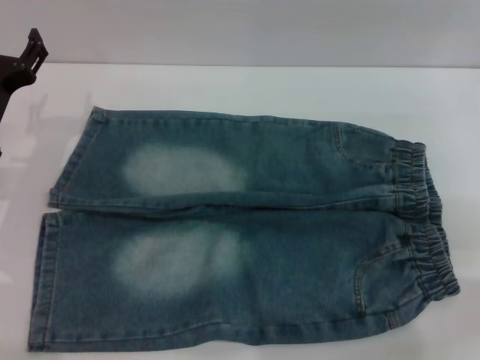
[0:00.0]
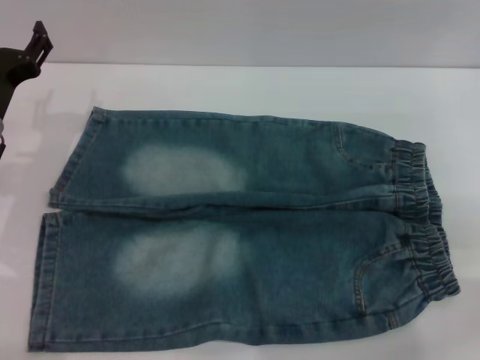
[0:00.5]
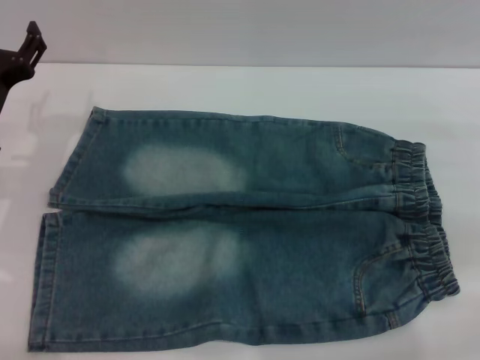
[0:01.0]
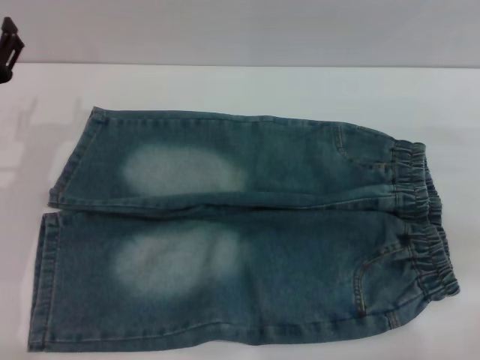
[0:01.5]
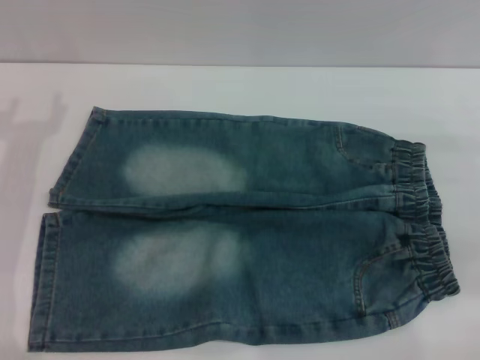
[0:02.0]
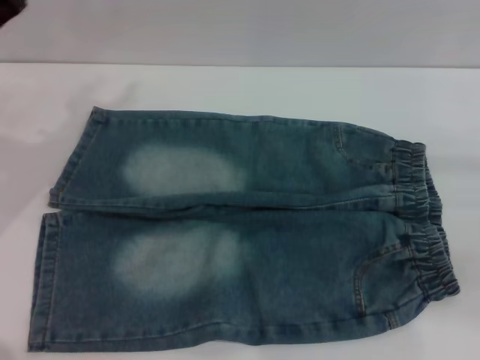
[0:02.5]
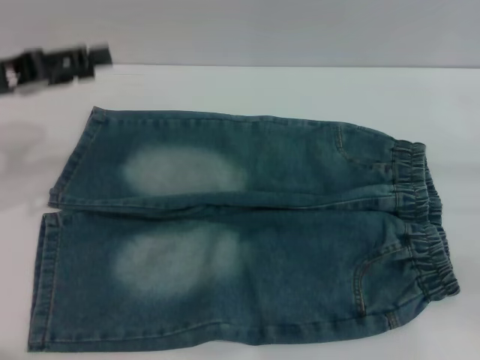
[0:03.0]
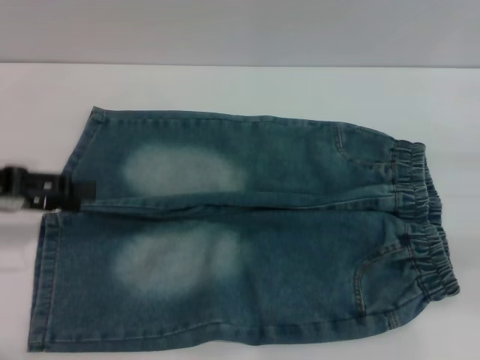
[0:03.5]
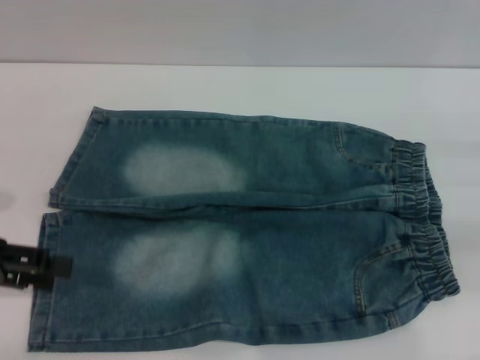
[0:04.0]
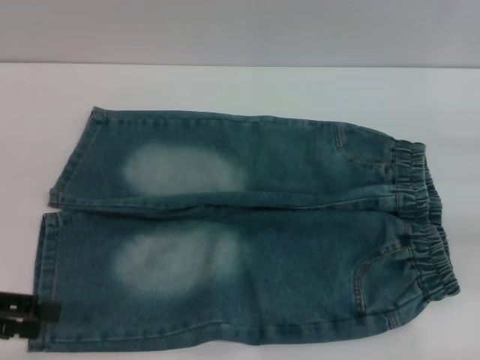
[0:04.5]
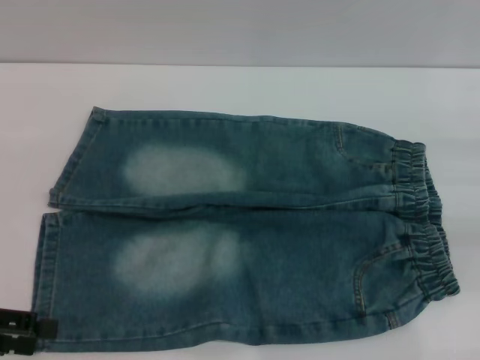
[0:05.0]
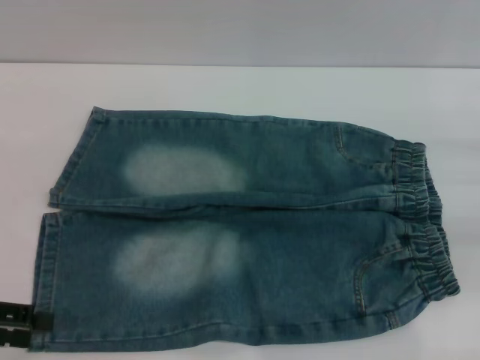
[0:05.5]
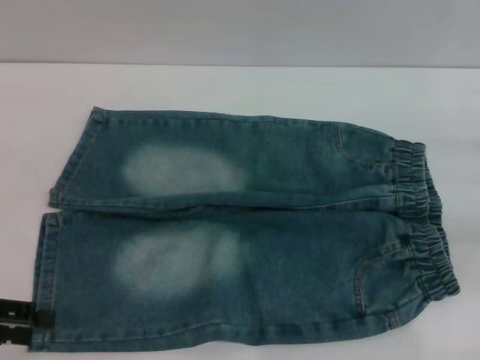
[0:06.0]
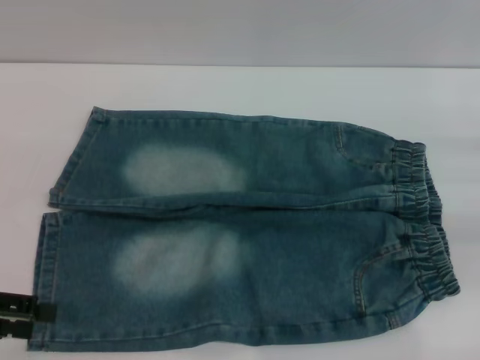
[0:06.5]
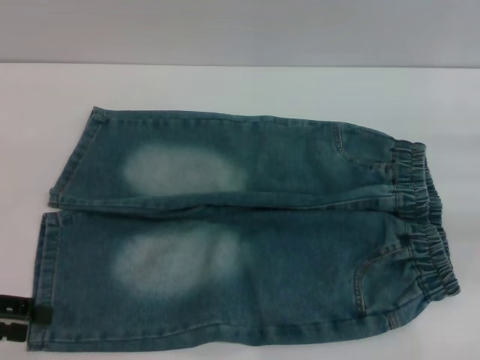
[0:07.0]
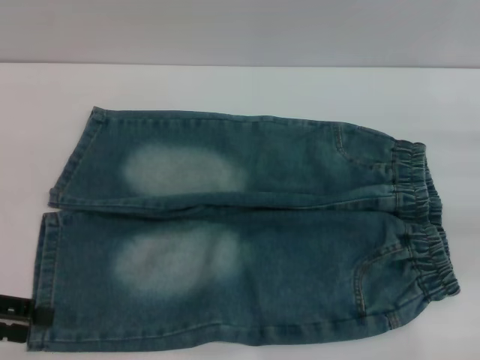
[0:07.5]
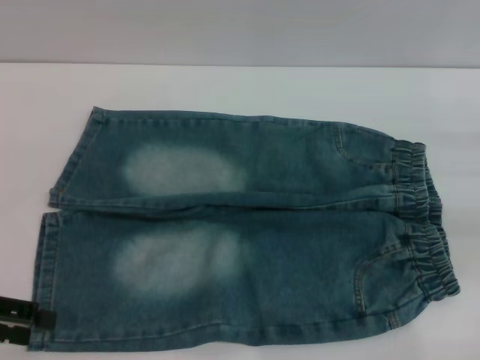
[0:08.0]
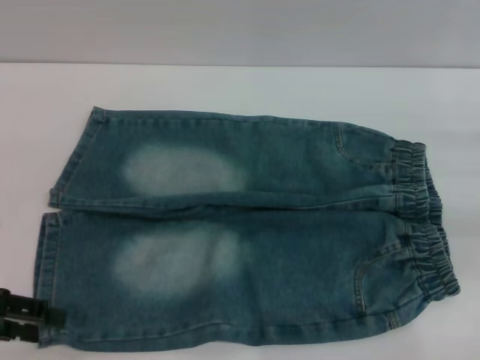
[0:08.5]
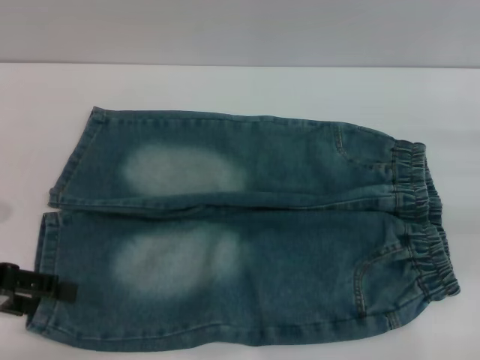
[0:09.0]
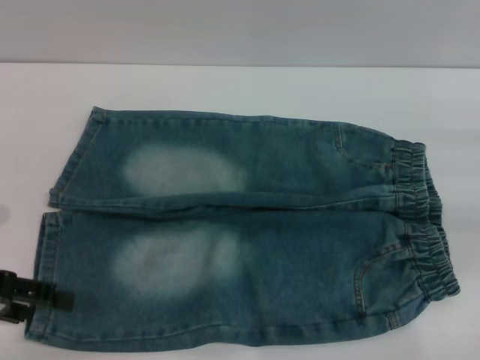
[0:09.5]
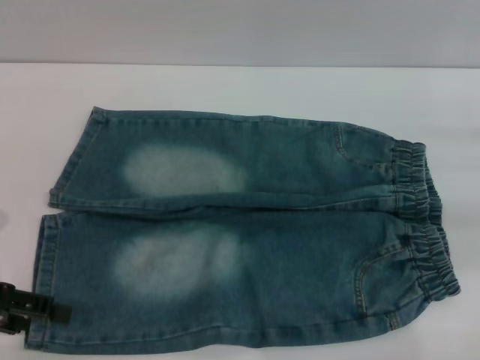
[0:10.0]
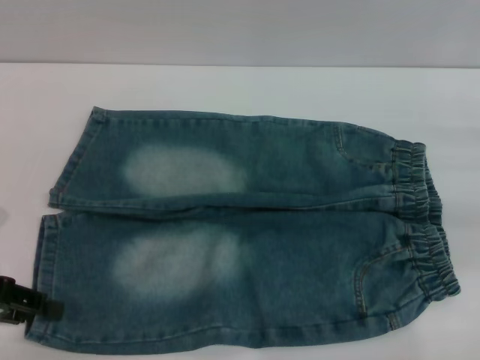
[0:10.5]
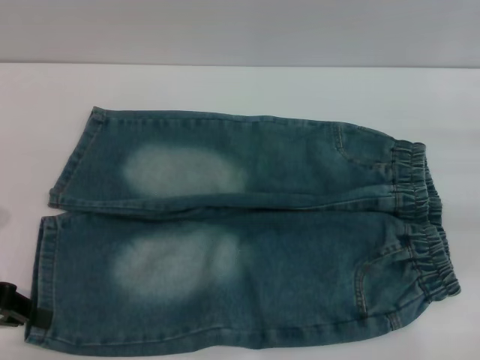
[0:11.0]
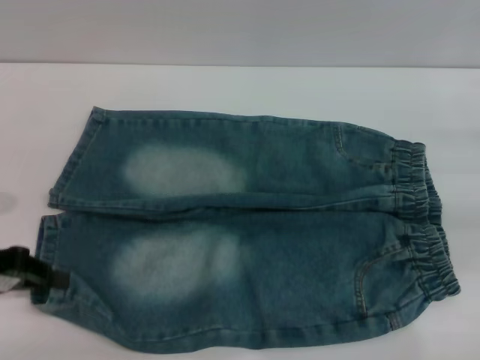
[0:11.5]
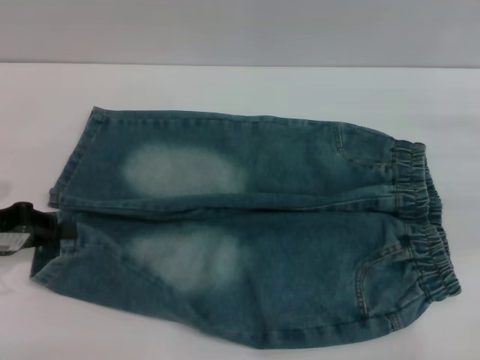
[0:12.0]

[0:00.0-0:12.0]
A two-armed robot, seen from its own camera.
0:00.0 to 0:02.0: The right gripper ends up roughly 5 cm from where it was.
0:02.0 to 0:04.0: The left gripper is displaced backward and to the left by approximately 10 cm.
0:04.0 to 0:06.0: The left gripper changes place by approximately 5 cm.
0:06.0 to 0:08.0: Neither gripper changes place.
0:08.0 to 0:10.0: The grippers make only small movements.
0:10.0 to 0:12.0: The left gripper closes its fingers.

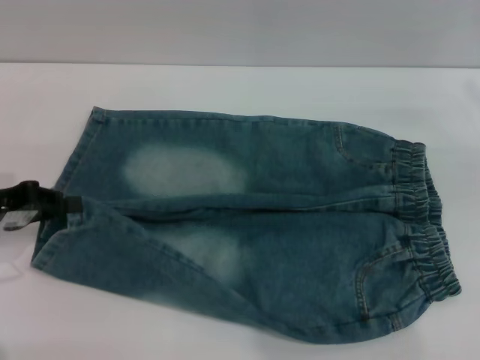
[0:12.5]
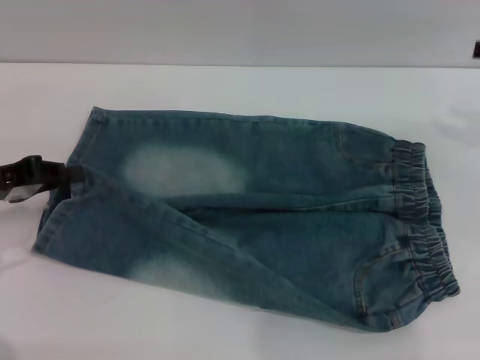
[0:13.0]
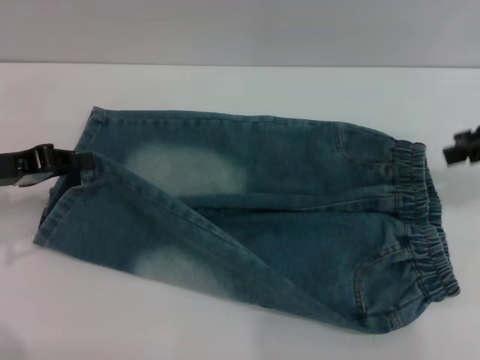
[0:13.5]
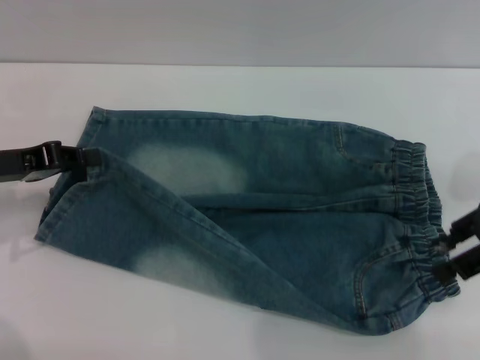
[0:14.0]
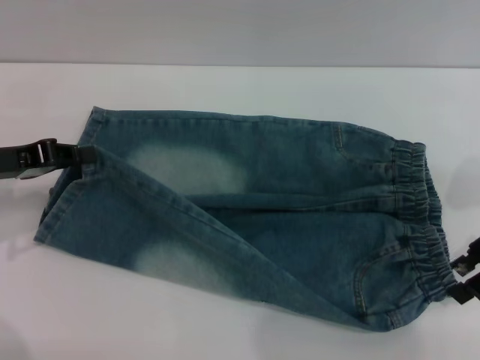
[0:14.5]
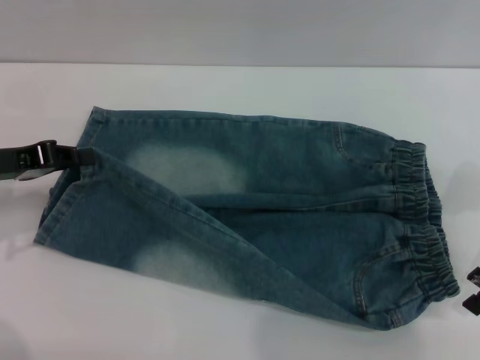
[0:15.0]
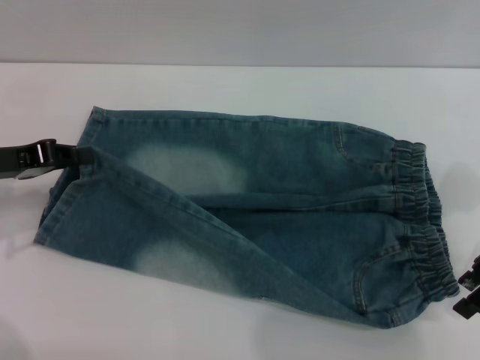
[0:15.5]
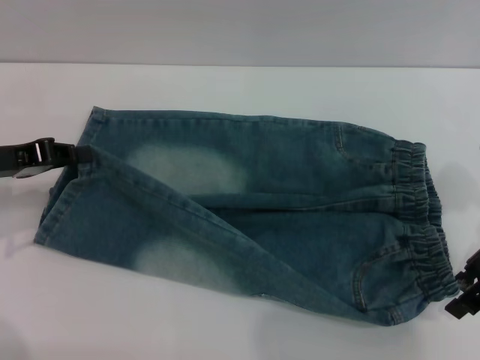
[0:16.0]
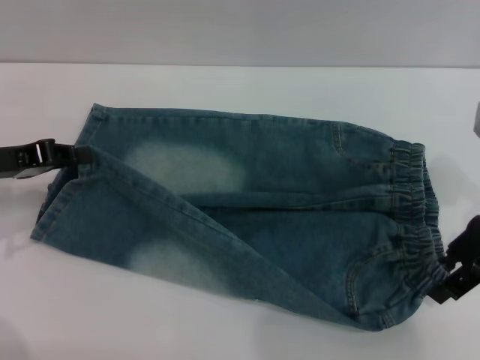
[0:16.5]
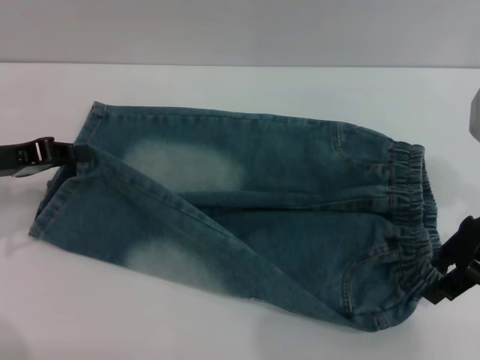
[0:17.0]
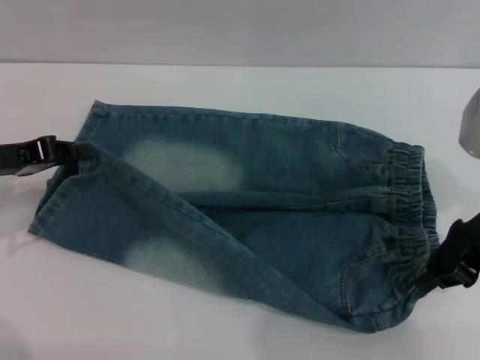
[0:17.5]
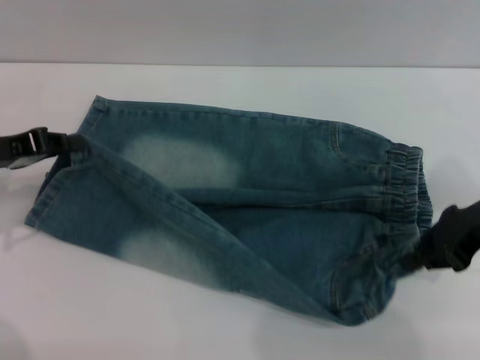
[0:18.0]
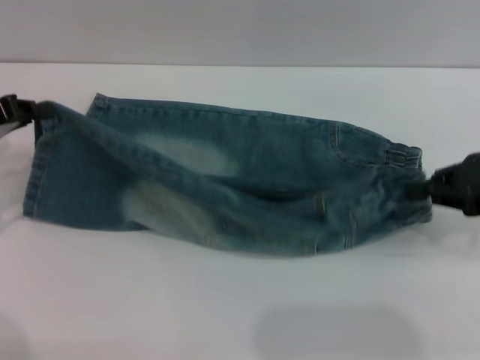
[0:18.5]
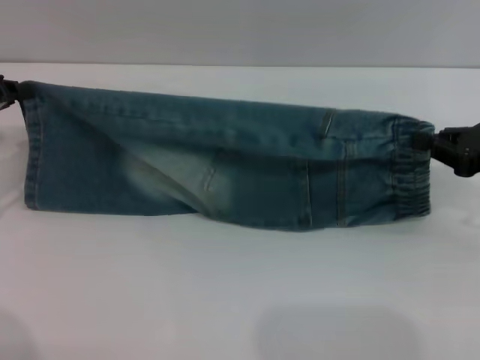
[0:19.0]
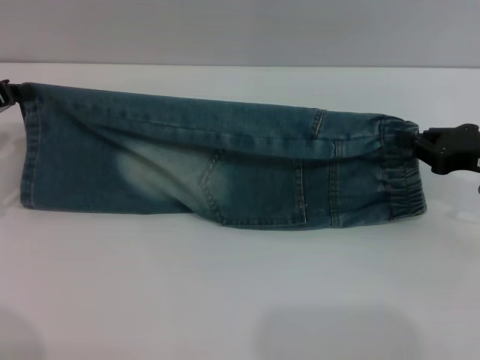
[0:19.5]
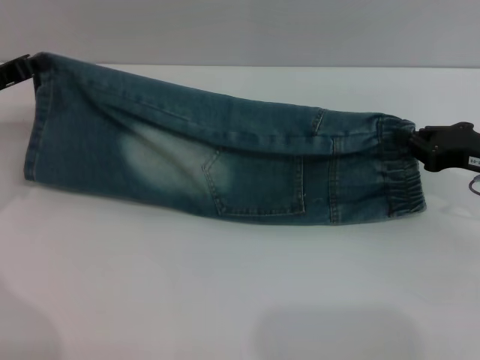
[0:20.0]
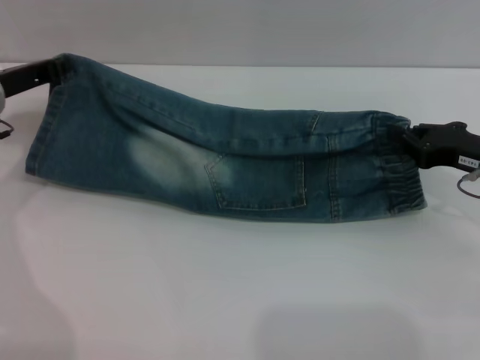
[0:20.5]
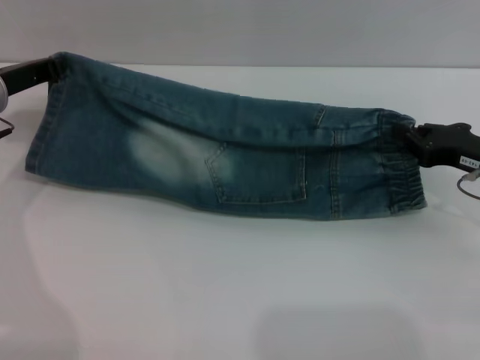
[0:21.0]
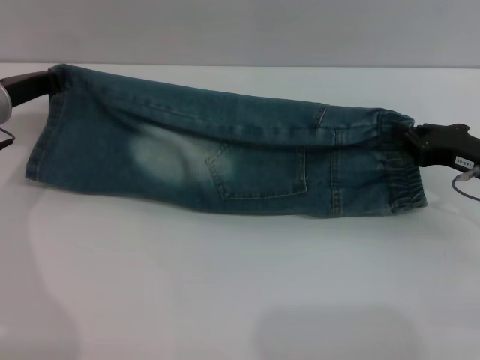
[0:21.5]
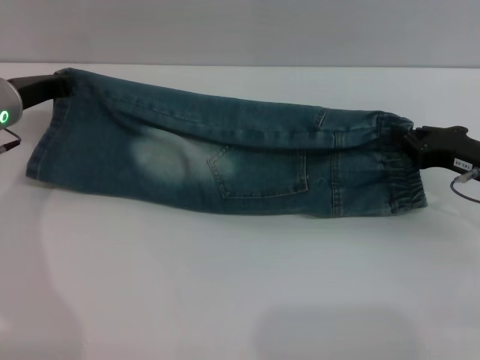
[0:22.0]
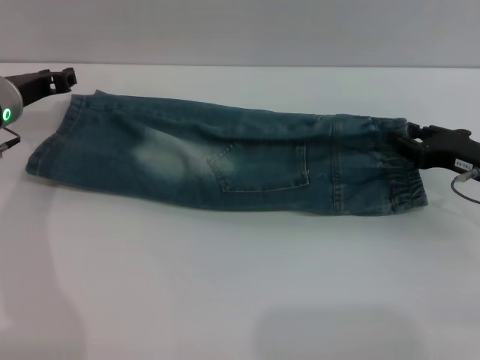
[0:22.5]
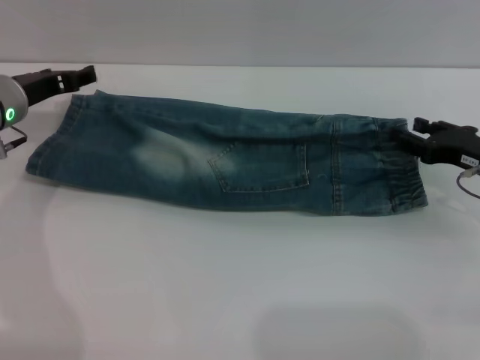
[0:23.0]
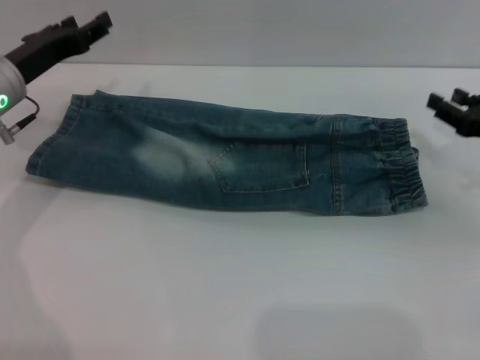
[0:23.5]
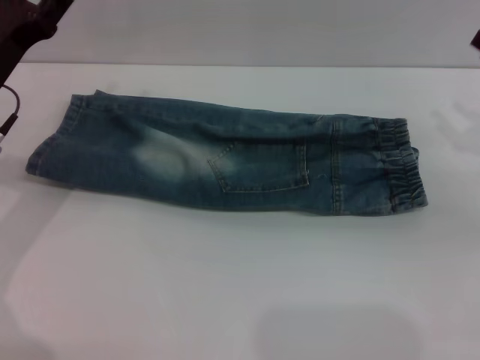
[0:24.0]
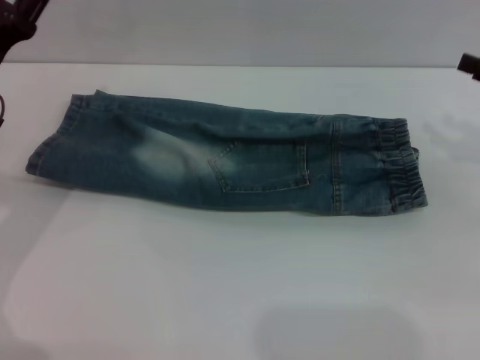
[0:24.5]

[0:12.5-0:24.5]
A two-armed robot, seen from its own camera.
0:12.5 to 0:14.5: The right gripper shifts approximately 10 cm to the left.
0:14.5 to 0:16.5: The grippers make only small movements.
0:16.5 to 0:18.5: The right gripper travels to the right by about 5 cm, and closes.
0:18.5 to 0:20.5: The left gripper heads forward and to the right, covering approximately 10 cm; the right gripper goes some 5 cm downward.
0:20.5 to 0:22.5: The right gripper opens.
0:22.5 to 0:24.5: The left gripper goes about 10 cm backward, and opens its fingers, while the right gripper is displaced upward and to the right by some 10 cm, and opens up.

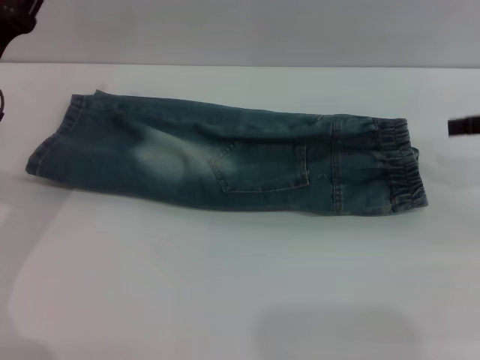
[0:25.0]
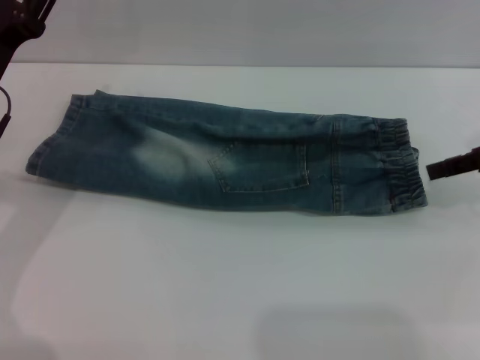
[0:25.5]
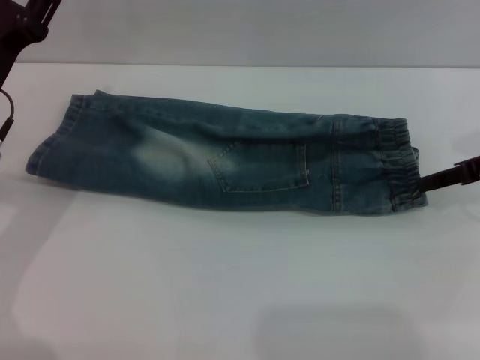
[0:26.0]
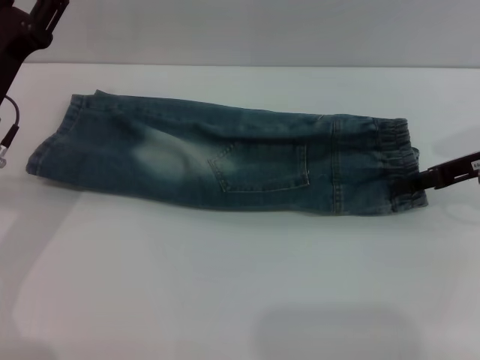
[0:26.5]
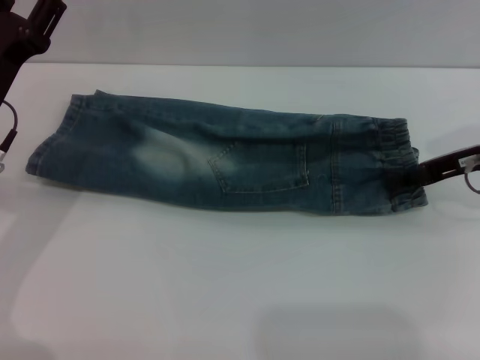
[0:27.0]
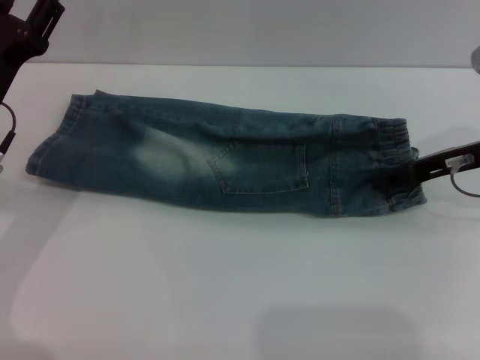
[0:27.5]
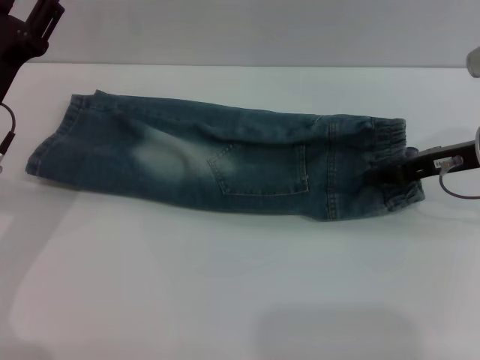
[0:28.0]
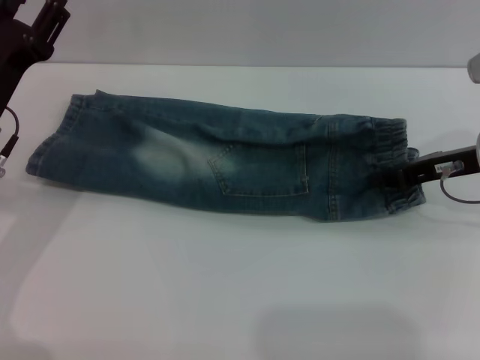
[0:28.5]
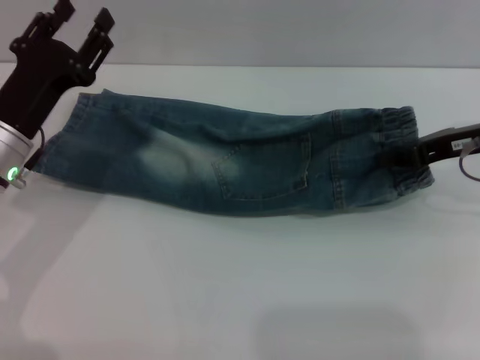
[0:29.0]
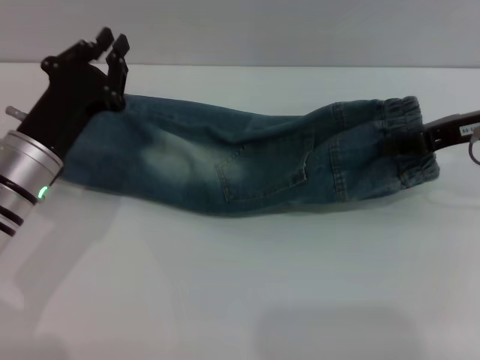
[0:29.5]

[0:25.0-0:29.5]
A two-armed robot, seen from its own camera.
0:25.0 to 0:27.0: The right gripper goes approximately 10 cm to the left and downward.
0:27.0 to 0:29.5: The right gripper closes. Meanwhile the left gripper changes place by some 5 cm, and closes its fingers.
